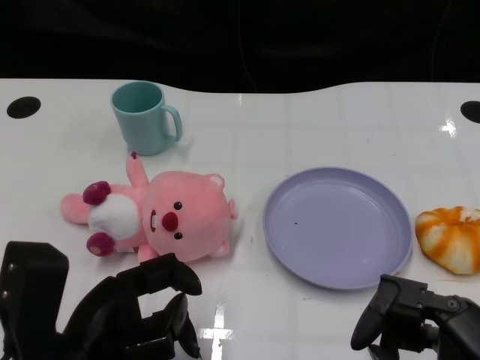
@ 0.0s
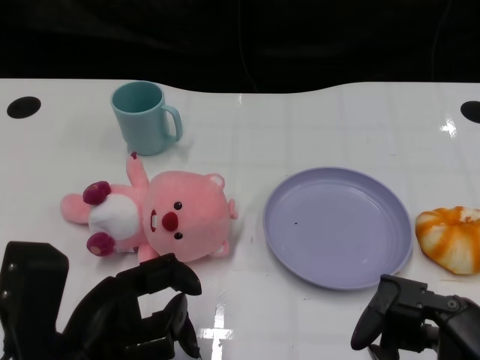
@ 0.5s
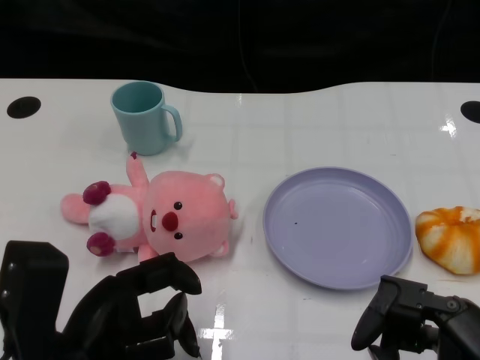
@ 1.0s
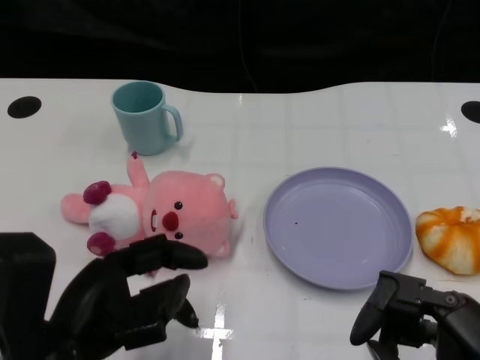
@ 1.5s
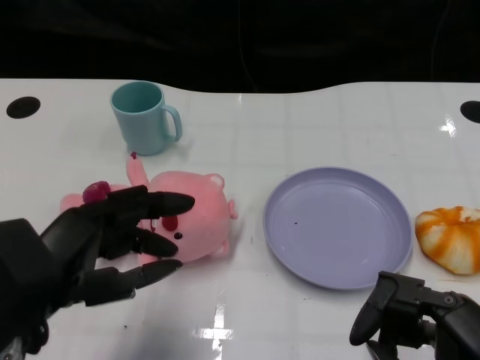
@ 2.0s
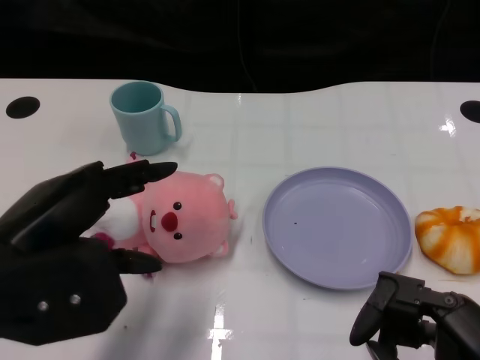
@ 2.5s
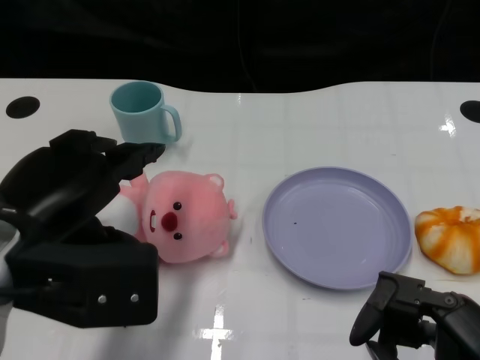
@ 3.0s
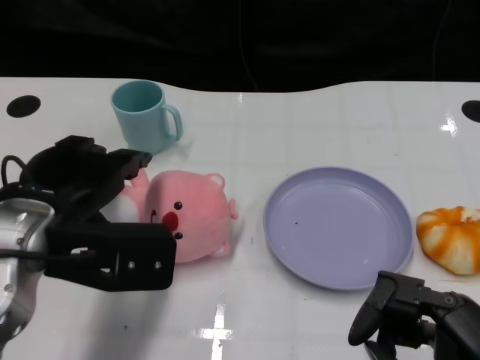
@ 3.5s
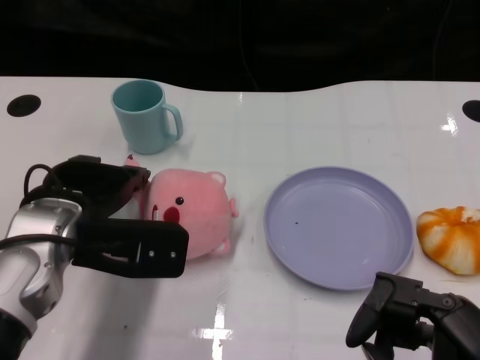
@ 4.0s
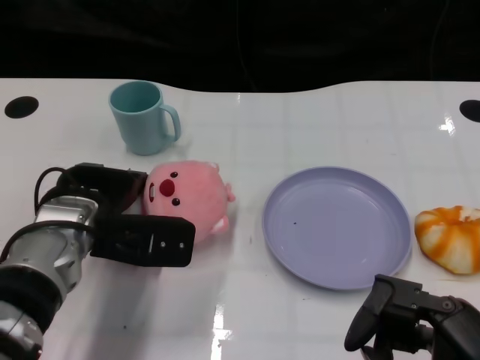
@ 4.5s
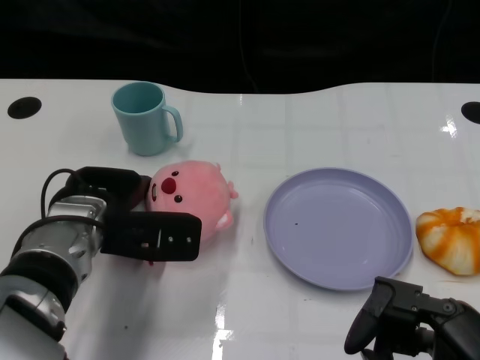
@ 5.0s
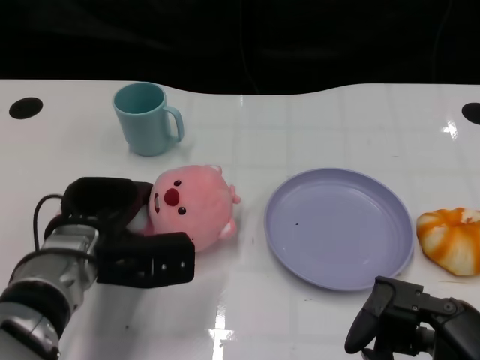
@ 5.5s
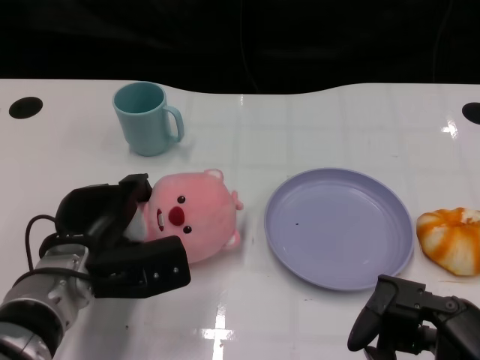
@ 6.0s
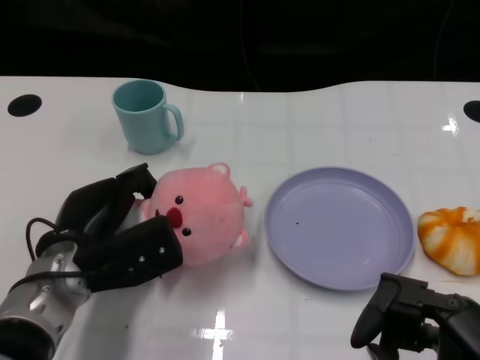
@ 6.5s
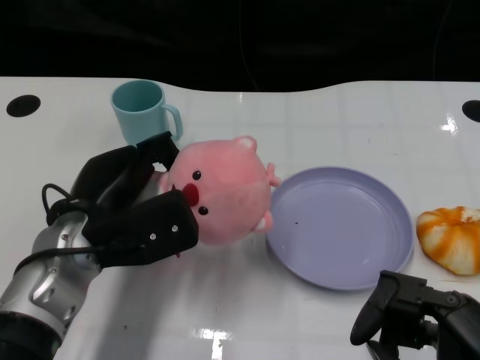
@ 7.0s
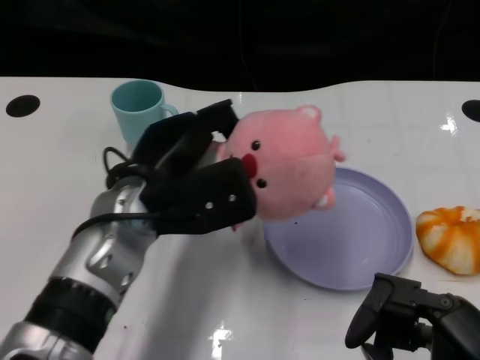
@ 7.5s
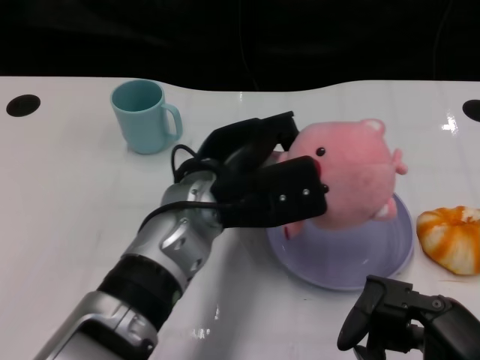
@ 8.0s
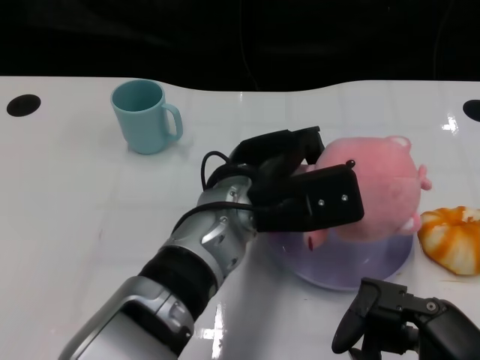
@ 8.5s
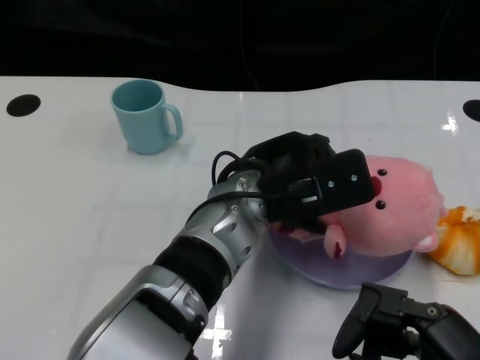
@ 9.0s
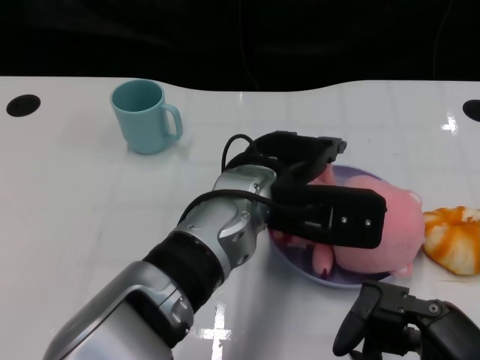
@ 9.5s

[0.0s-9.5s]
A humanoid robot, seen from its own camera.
Task of the whole recording: Pick up the doll on one side of the plate and place it into the plate.
Step, 1.5s to 6.0s: Grasp the pink doll with the left gripper.
2.0s to 4.0s: The left hand travels forward by approximately 10 cm.
4.0s to 5.5s: The left hand travels downward by some 5 cm.
5.5s to 7.5s: The left hand goes approximately 10 cm upward and to the right.
7.5s to 9.5s: The left hand moves to the right, approximately 10 cm.

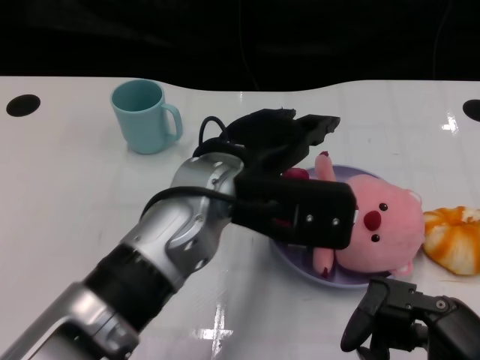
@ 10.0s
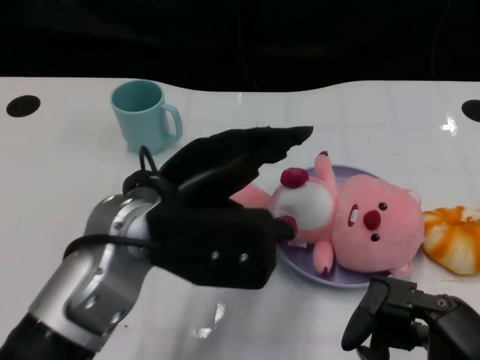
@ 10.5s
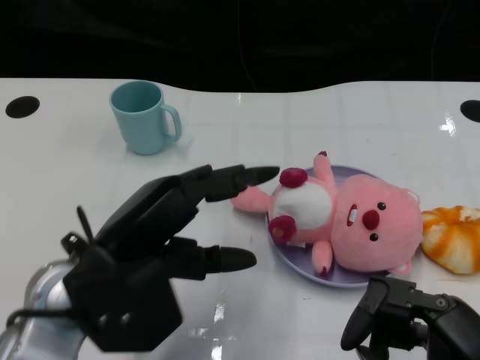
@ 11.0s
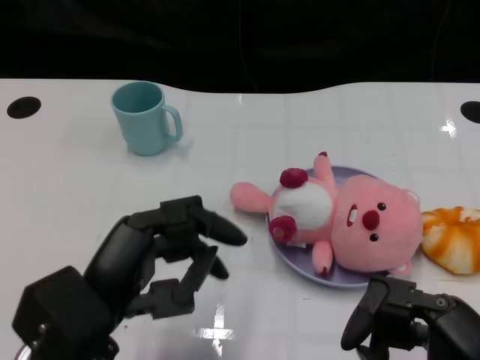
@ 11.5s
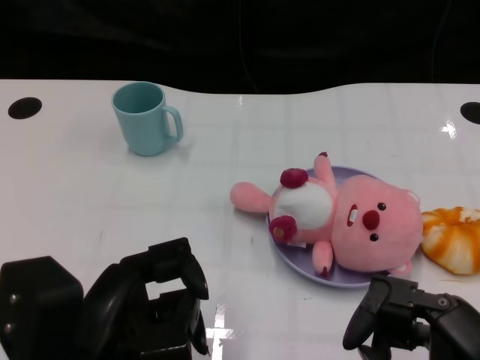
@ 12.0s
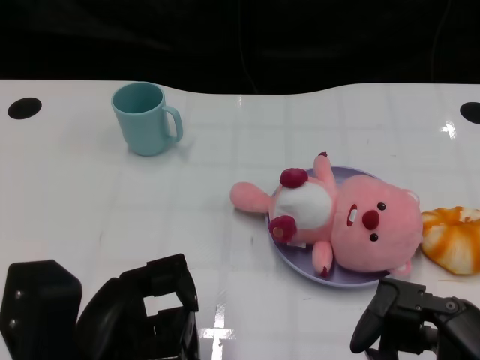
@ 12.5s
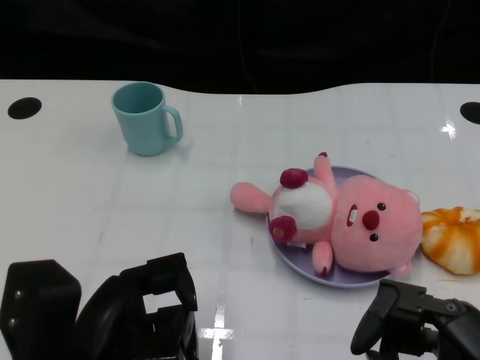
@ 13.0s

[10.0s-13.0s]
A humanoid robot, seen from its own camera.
Task of the whole recording: Pick up the doll on one side of the plate and place it into the plate.
10.0s to 11.5s: The left hand is displaced to the left, backward and downward by approximately 20 cm.

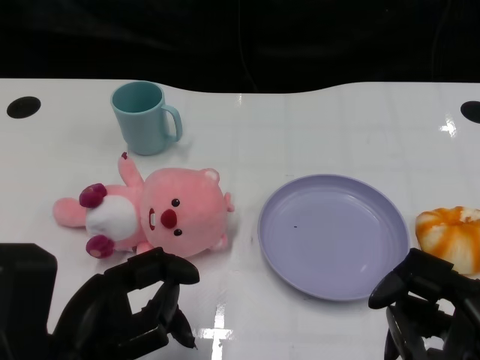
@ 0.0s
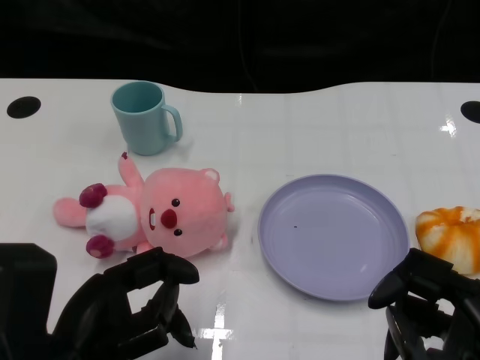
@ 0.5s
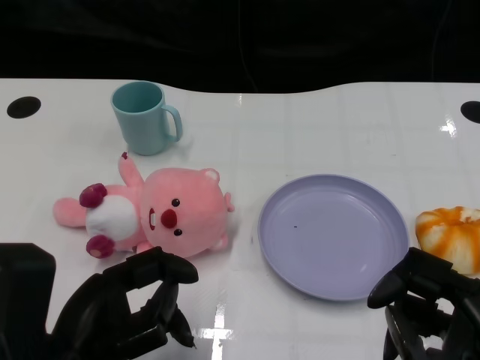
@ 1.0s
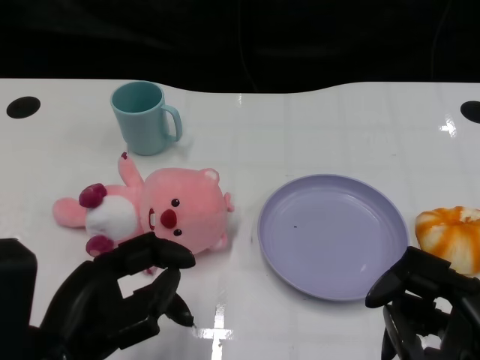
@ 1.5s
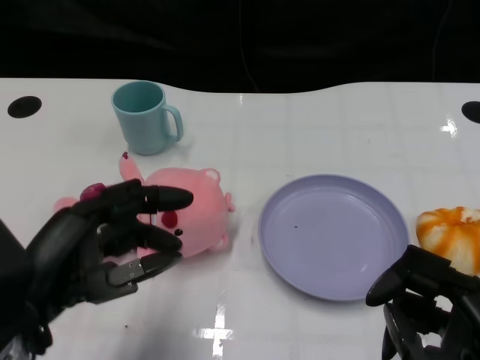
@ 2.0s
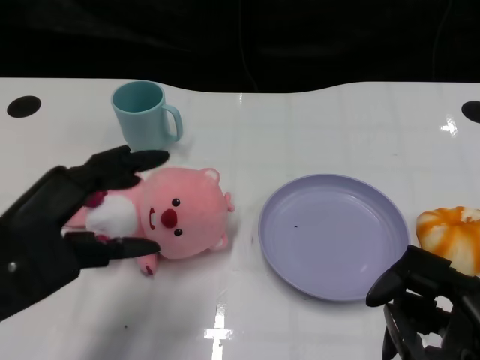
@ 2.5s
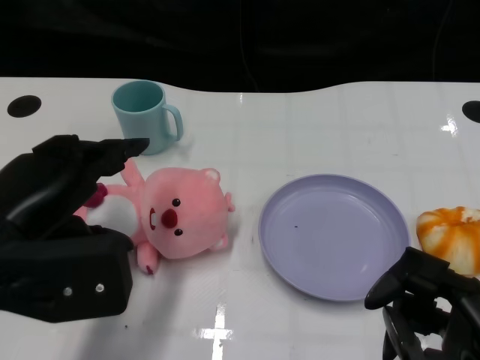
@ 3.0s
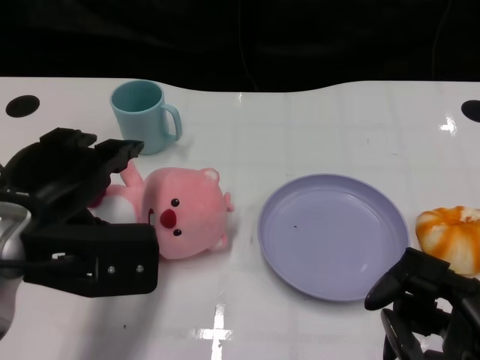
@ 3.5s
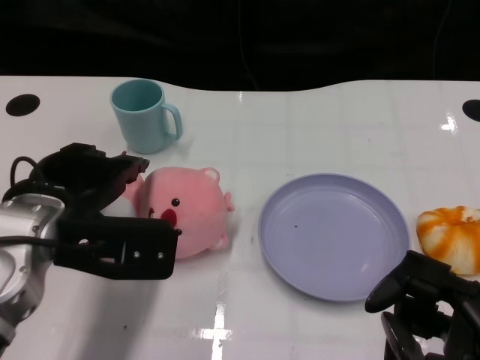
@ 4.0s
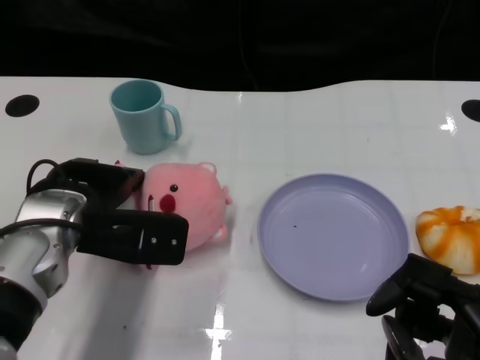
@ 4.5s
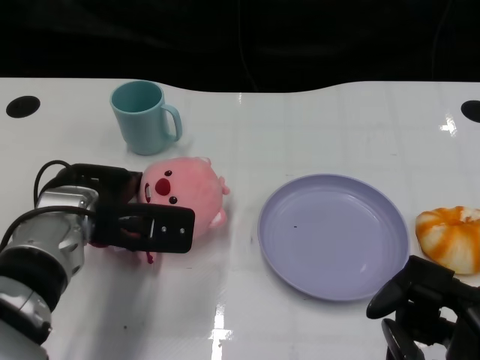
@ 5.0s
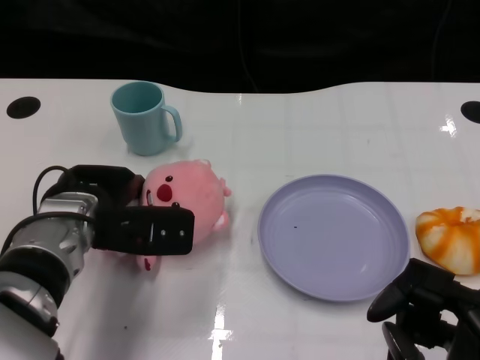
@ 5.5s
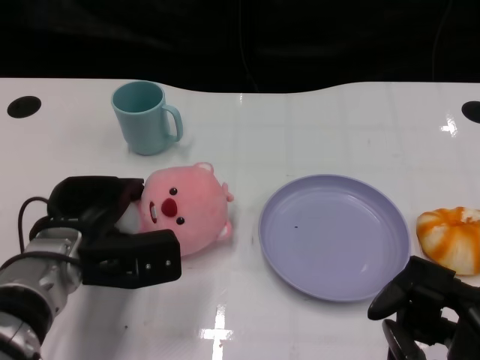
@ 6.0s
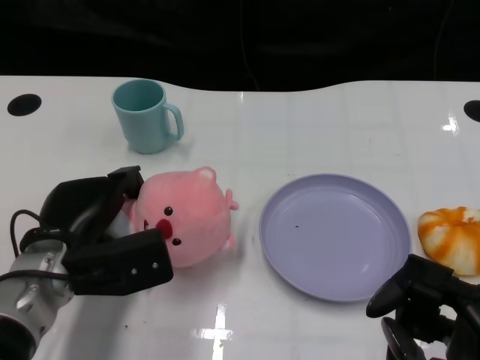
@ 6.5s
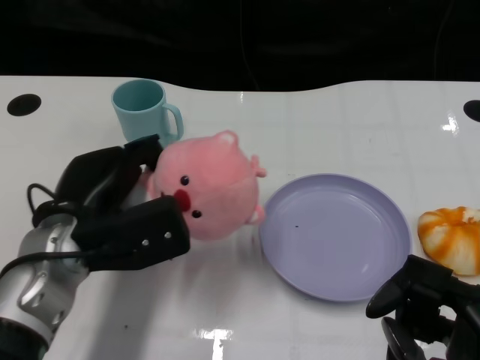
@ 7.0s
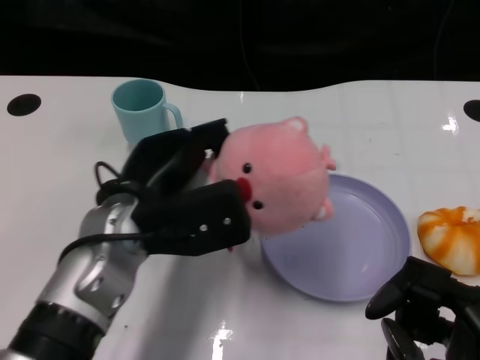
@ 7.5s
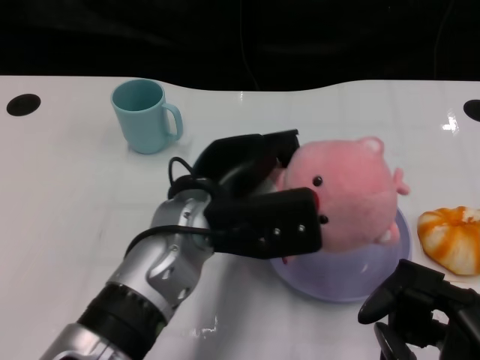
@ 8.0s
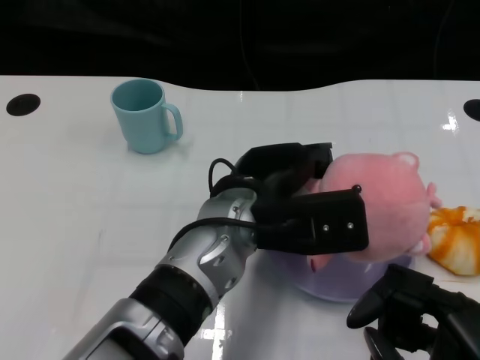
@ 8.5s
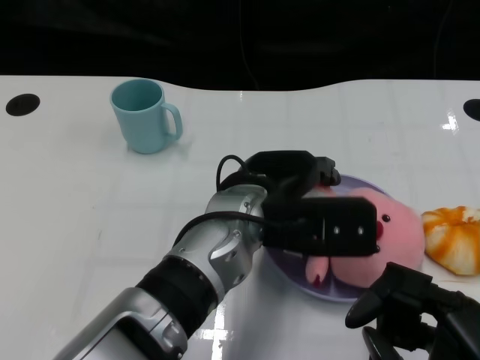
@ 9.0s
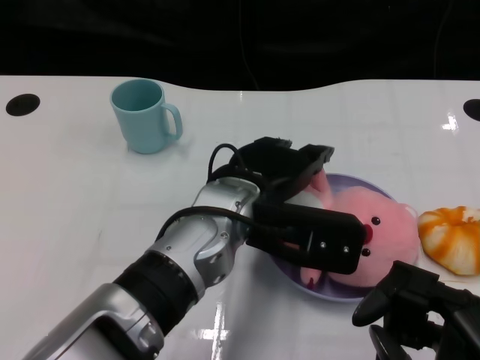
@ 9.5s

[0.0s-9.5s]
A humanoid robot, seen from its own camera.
Task of the whole recording: Pick up the doll on one side of the plate and place it into the plate.
Step, 1.5s to 6.0s: Grasp the pink doll with the left gripper.
2.0s to 4.0s: The left hand travels forward by some 10 cm.
4.0s to 5.5s: The left hand heads downward, covering about 5 cm.
5.5s to 7.5s: The left hand goes about 5 cm to the right.
7.5s to 9.5s: The left hand goes approximately 10 cm to the right.

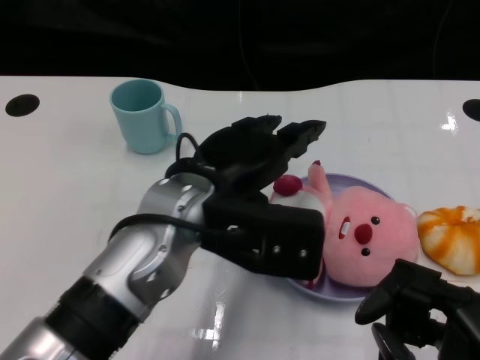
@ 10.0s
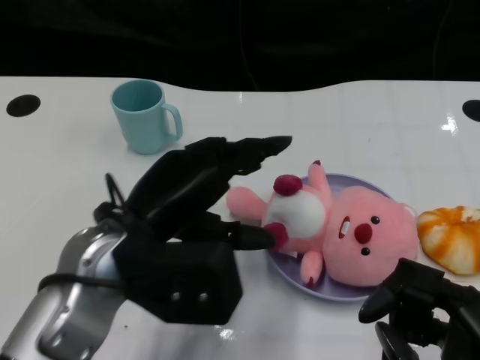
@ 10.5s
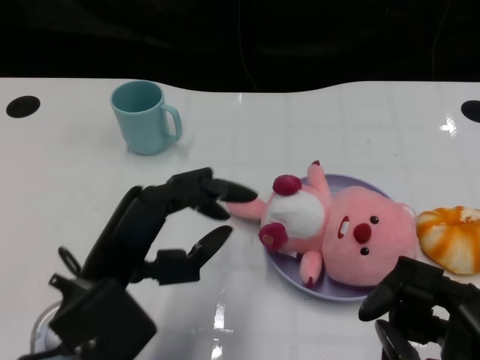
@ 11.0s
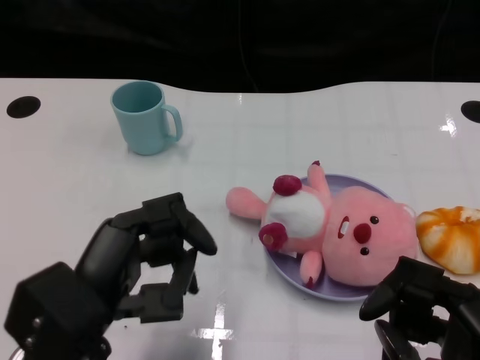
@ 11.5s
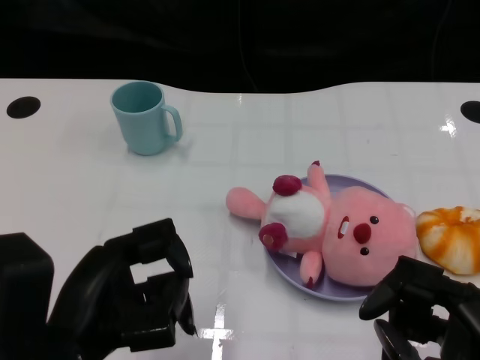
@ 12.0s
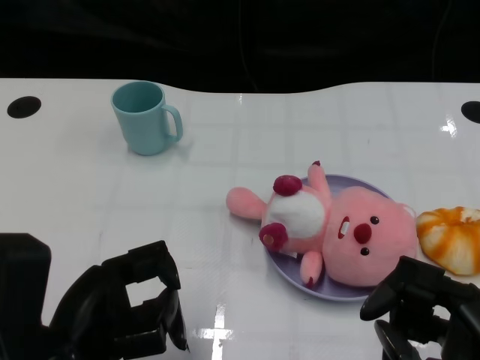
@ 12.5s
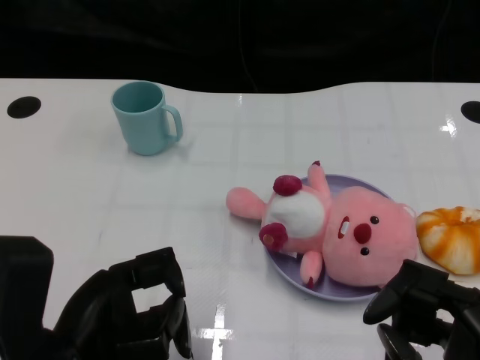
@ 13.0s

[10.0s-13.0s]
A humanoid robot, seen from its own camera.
Task of the whole recording: Pick up the doll on one side of the plate and place it into the plate.
10.0s to 11.5s: The left hand travels to the left, backward and downward by approximately 15 cm.
